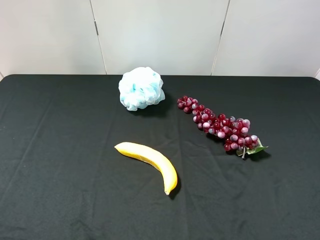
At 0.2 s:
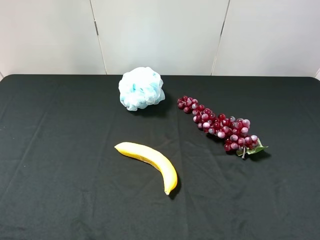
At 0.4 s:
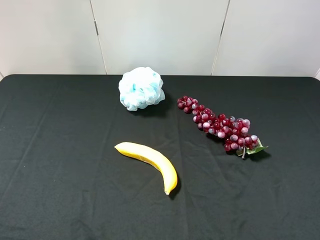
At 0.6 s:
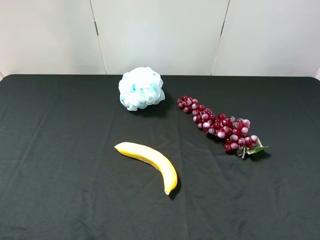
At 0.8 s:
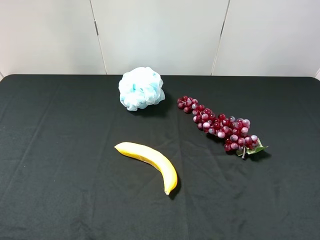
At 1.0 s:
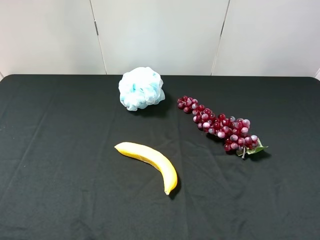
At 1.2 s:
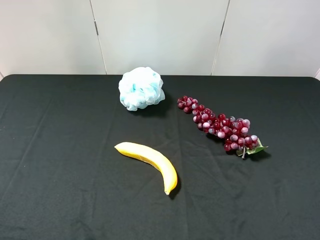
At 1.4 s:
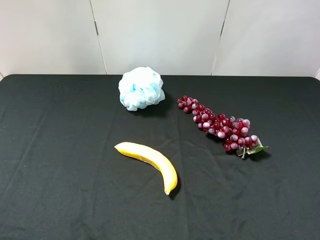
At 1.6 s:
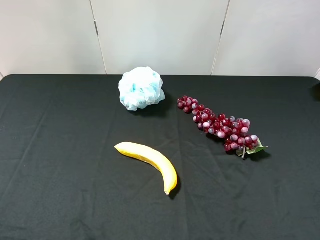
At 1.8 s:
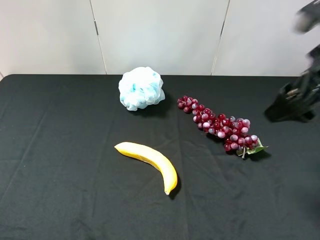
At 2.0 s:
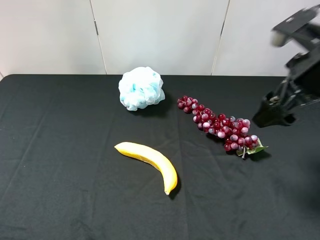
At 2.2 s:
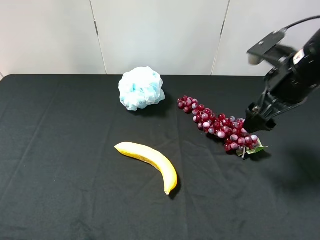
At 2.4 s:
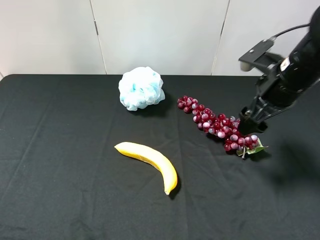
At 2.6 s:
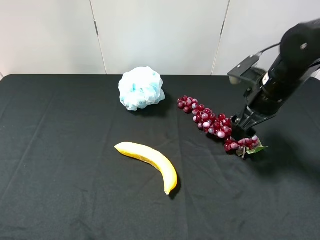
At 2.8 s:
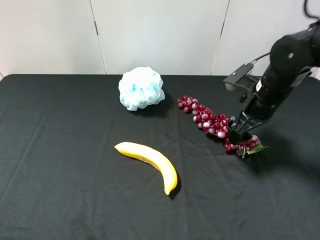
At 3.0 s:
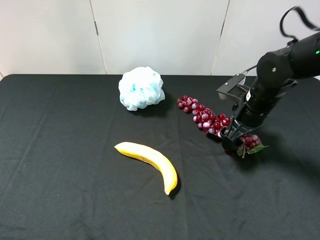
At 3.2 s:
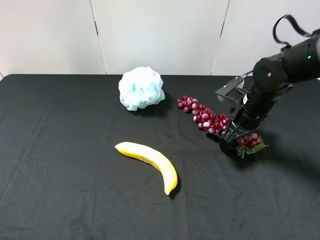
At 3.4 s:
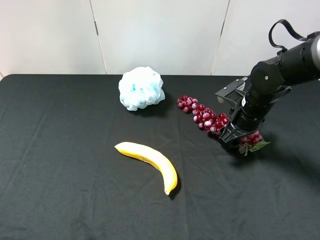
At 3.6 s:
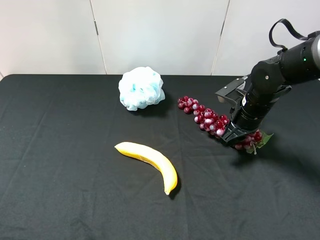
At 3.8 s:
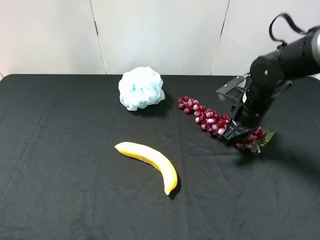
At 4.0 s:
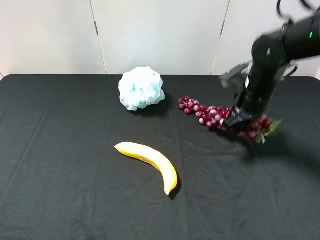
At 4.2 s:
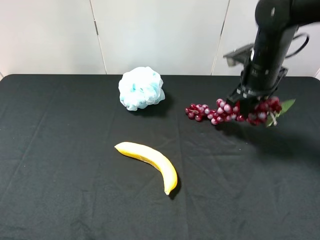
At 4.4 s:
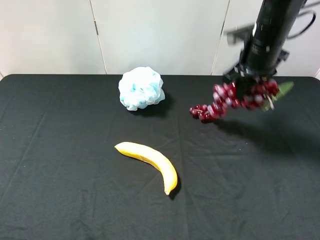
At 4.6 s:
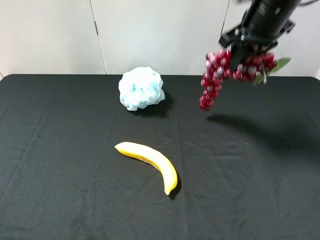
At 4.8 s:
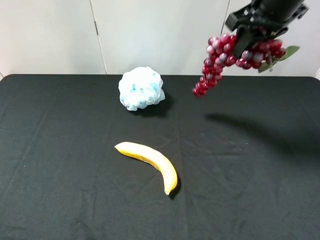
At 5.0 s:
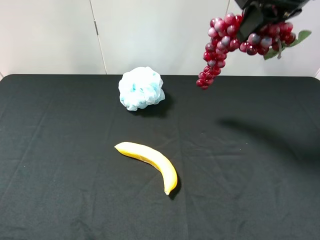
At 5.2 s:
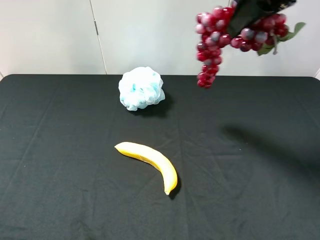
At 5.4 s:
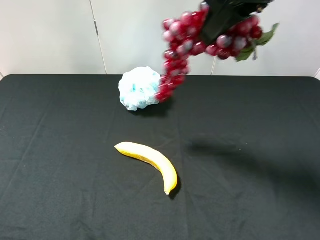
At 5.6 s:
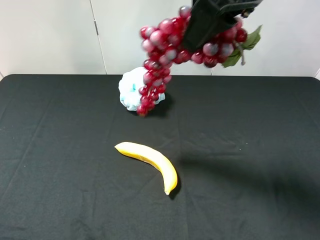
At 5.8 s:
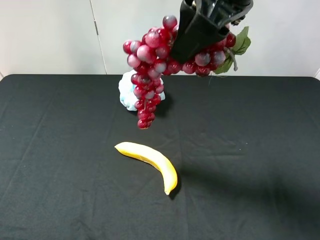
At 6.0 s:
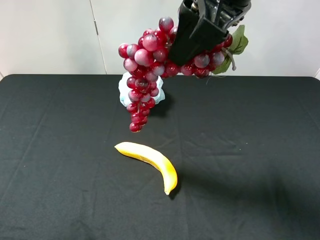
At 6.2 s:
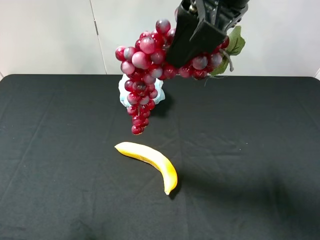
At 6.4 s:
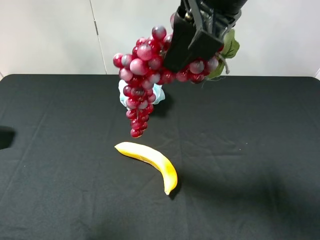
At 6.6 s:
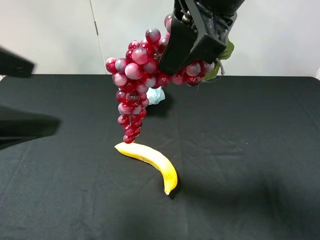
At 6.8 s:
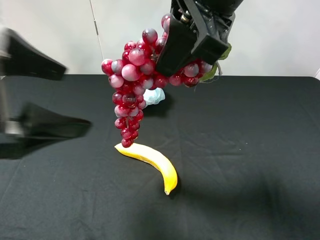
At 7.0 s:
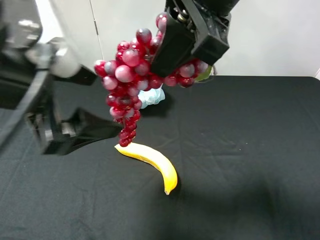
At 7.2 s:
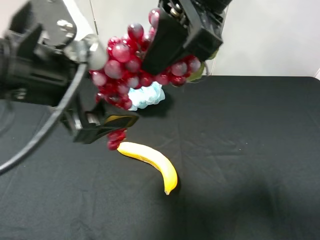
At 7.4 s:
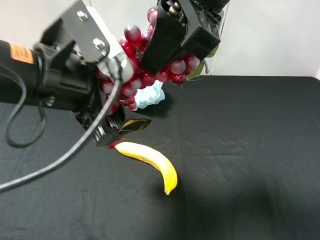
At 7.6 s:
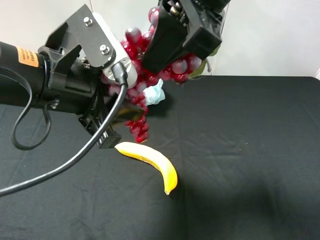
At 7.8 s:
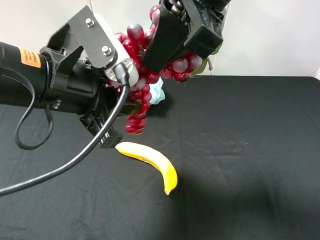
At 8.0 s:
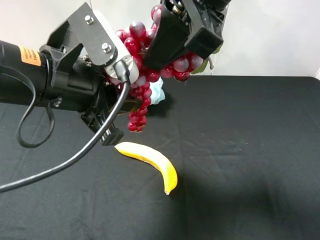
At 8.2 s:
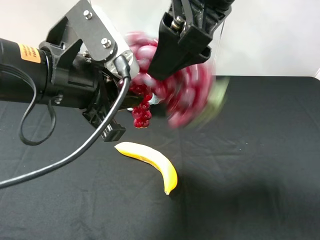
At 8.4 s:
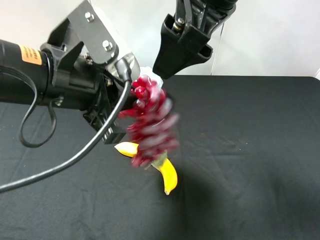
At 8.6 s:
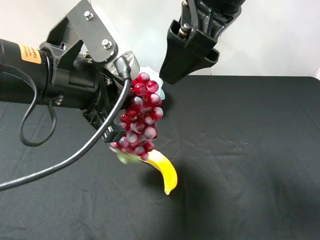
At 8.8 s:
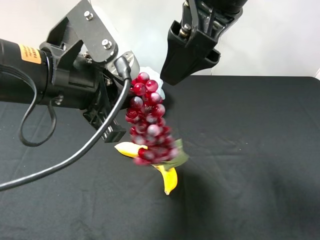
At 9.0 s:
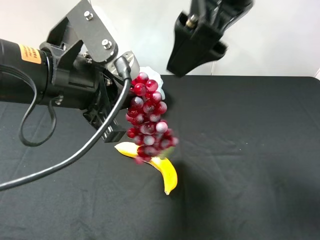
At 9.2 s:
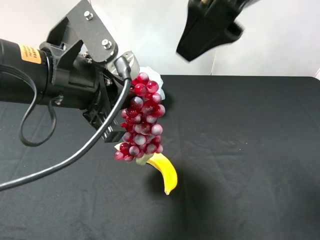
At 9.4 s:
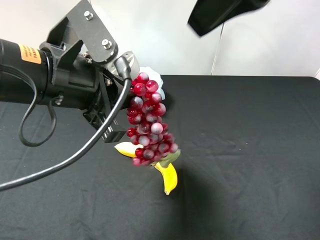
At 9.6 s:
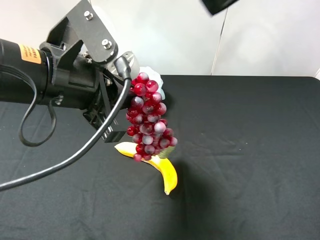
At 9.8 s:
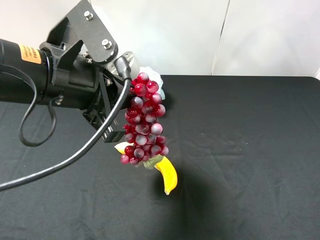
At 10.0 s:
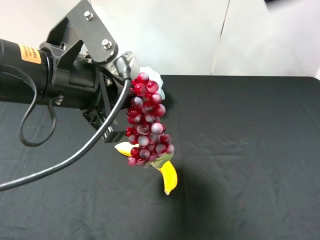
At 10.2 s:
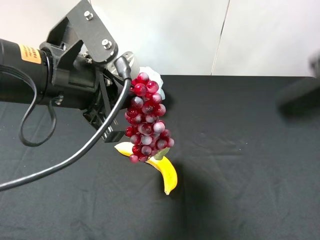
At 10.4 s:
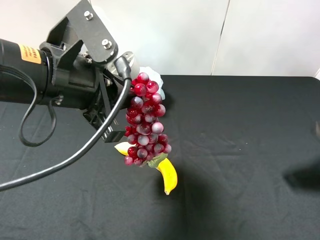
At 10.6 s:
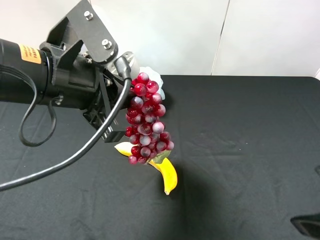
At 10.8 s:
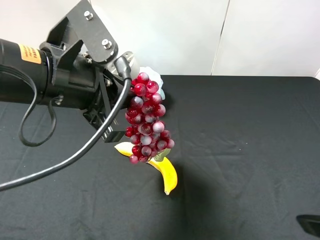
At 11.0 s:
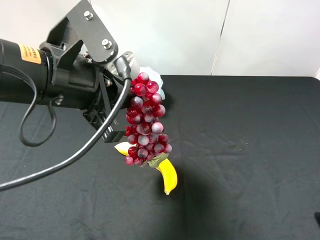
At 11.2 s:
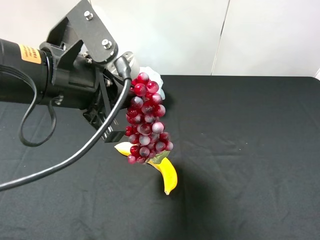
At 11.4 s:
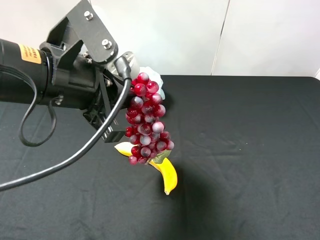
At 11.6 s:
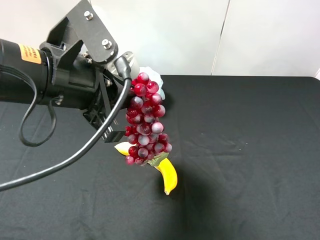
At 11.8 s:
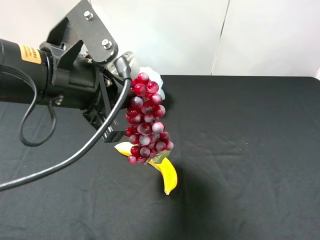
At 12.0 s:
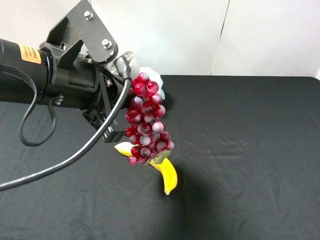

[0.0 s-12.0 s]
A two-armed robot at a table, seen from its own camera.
Task of the whole recording: use the right gripper to pick up the item and transfer it from the right gripper to the left gripper.
Step, 0.0 to 3.8 s: Use the right gripper to grab the grape on the right side of the table.
Step, 4.0 to 8.8 s: Pass the grape to the left gripper.
1.6 to 3.0 s: The right gripper goes some 25 cm downward and forward.
3.0 to 4.4 s: The right gripper shifts roughly 15 cm upward, and closes.
4.4 to 6.0 s: The right gripper is displaced backward, upward and to the left by roughly 20 cm. Meanwhile the left gripper shifts approximately 10 cm forward and upward.
6.0 to 7.6 s: The left gripper shifts some 20 cm to the right and forward, and closes its fingers.
7.6 to 9.0 s: The right gripper opens up.
9.0 to 10.4 s: The right gripper shifts some 20 cm to the right, backward and downward.
10.4 to 12.0 s: The right gripper goes about 10 cm to the right and backward.

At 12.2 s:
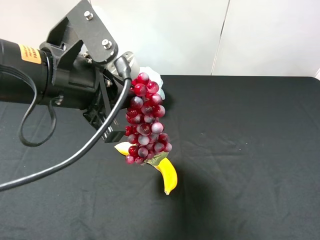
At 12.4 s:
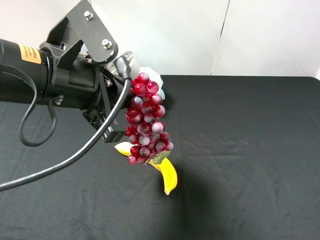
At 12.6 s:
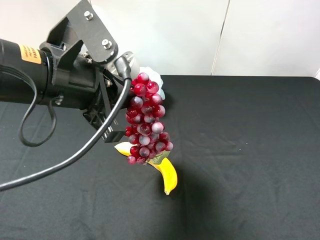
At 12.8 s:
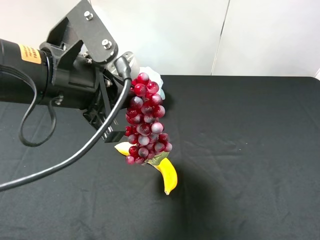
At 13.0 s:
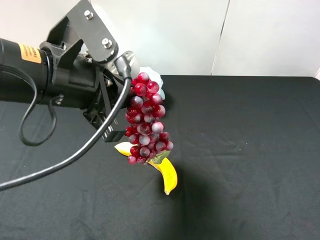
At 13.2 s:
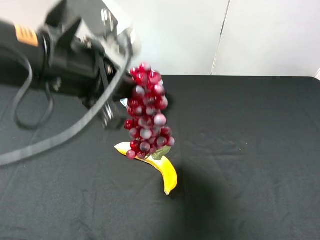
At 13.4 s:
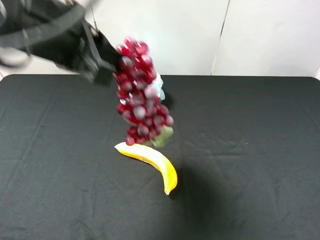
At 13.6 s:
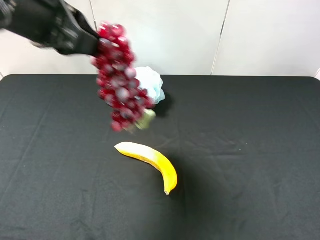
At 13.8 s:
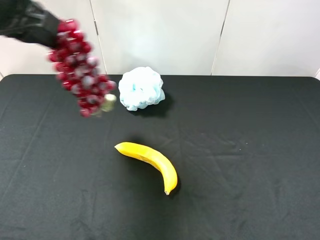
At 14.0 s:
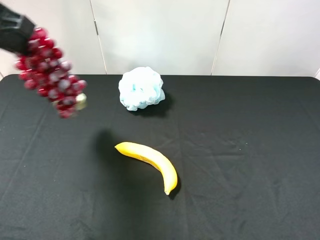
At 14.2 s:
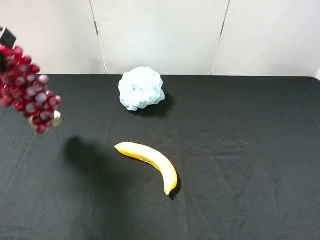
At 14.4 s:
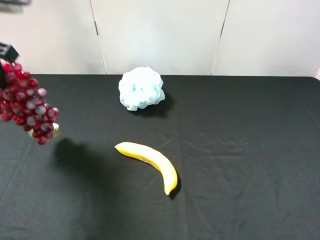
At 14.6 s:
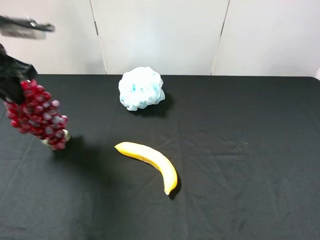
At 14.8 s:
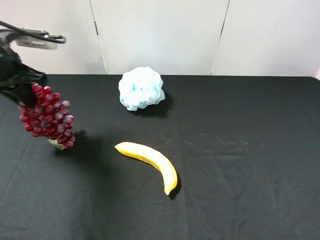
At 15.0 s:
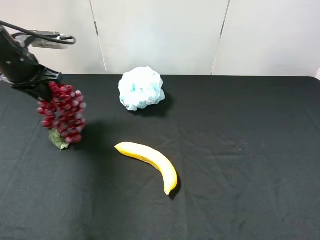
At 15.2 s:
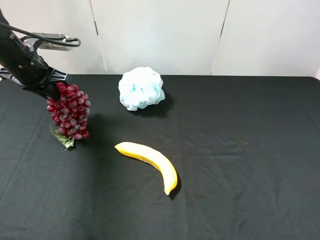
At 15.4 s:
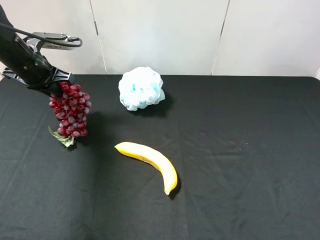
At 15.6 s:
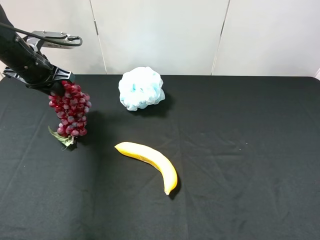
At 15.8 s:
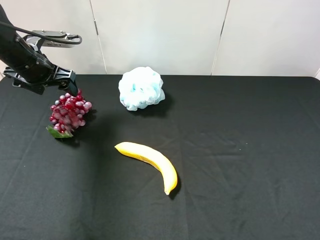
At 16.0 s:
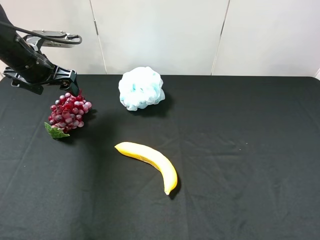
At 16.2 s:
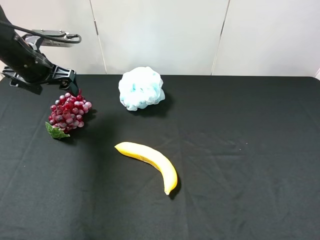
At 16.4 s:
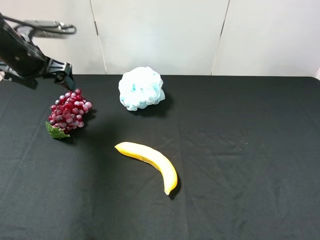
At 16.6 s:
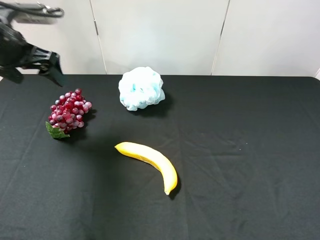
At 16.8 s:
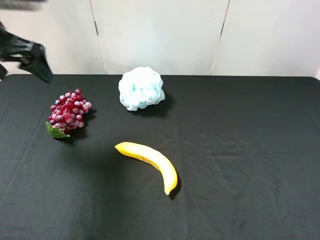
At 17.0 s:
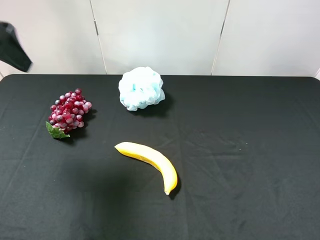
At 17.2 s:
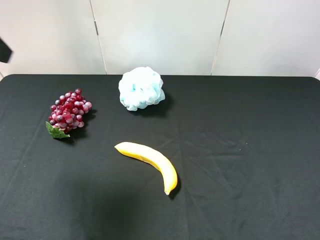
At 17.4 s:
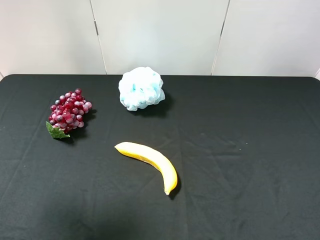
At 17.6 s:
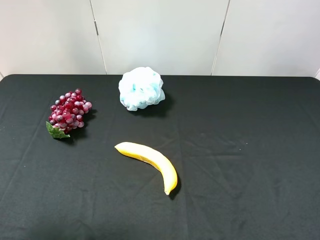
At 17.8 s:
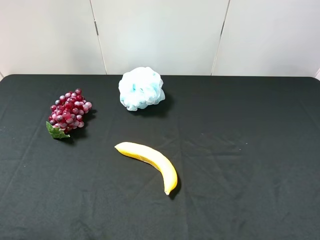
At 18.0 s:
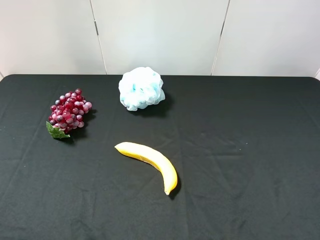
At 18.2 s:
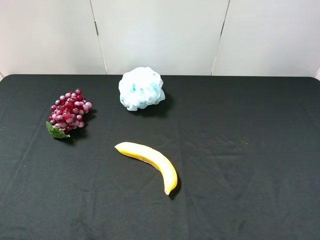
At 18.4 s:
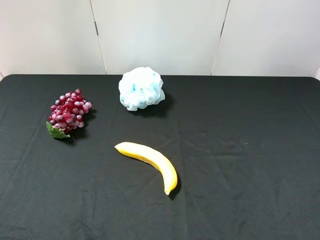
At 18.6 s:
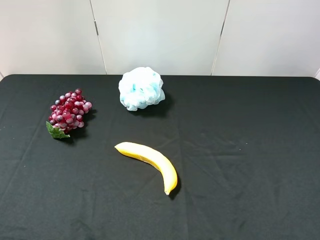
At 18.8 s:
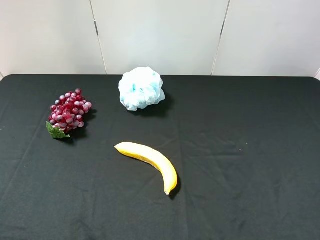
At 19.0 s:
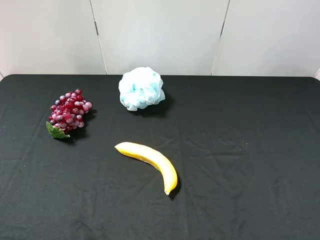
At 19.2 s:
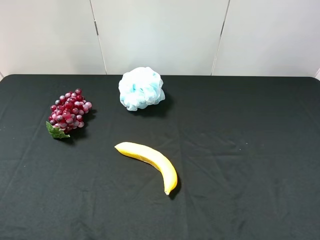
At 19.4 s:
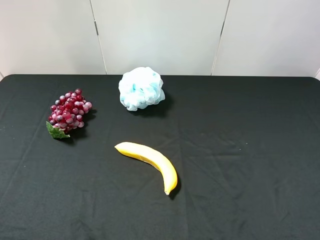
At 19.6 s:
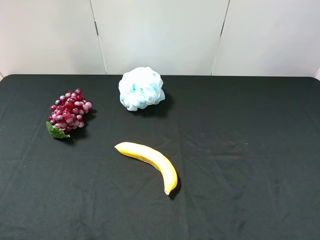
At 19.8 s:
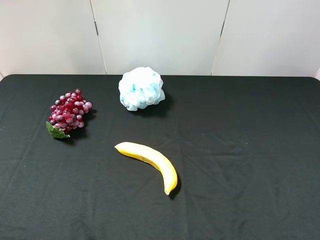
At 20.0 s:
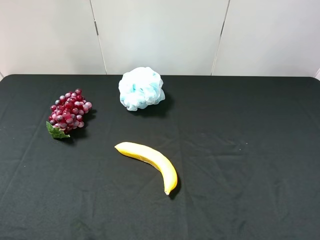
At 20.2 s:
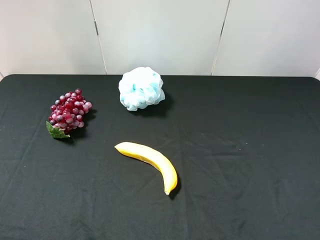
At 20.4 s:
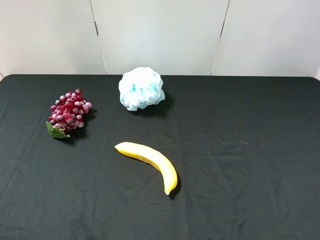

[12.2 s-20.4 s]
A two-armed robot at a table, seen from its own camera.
Task of the whole recording: use the right gripper to pick up the item and transfer it from the right gripper to the left gripper.
Step, 12.2 to 16.0 s: The left gripper places grape on the left side of the table.
12.2 to 13.8 s: The left gripper is displaced to the left, upward and forward by roughly 15 cm.
13.8 to 15.4 s: The left gripper heads downward and forward, covering some 20 cm.
15.4 to 17.2 s: The left gripper goes some 25 cm upward and backward, and opens.
17.2 to 18.8 s: The left gripper shifts about 25 cm backward and downward.
